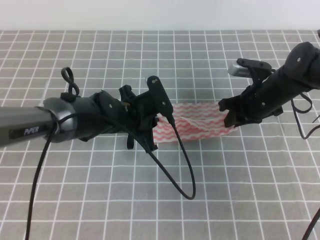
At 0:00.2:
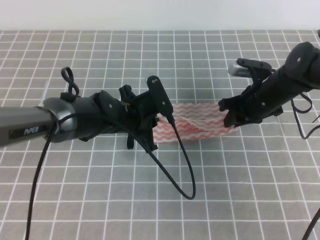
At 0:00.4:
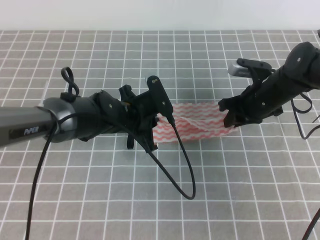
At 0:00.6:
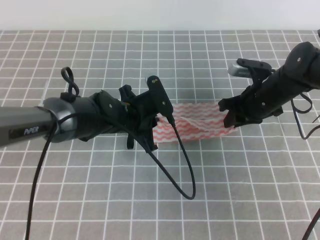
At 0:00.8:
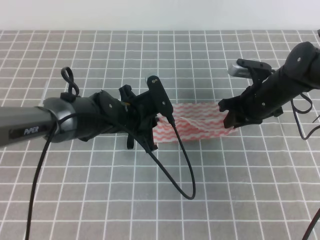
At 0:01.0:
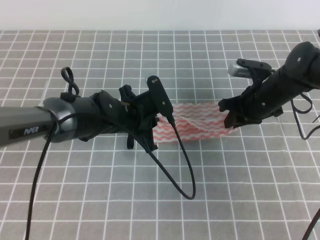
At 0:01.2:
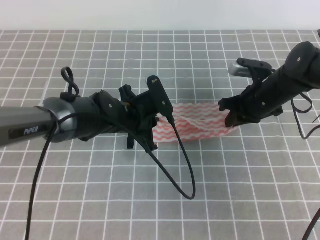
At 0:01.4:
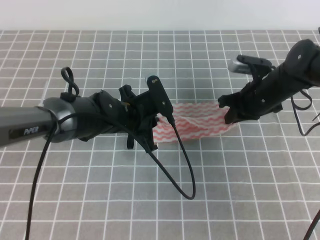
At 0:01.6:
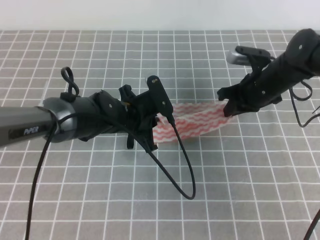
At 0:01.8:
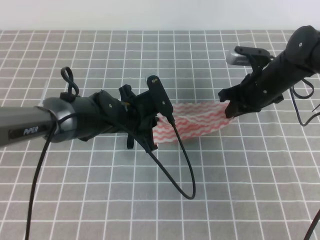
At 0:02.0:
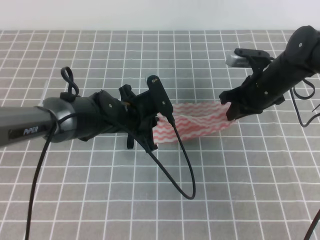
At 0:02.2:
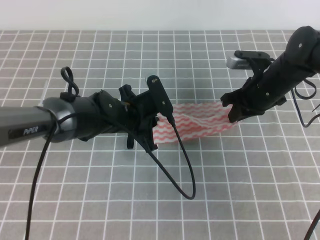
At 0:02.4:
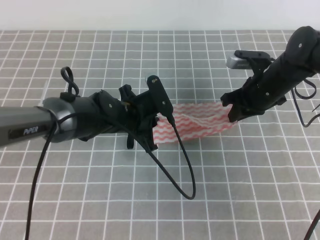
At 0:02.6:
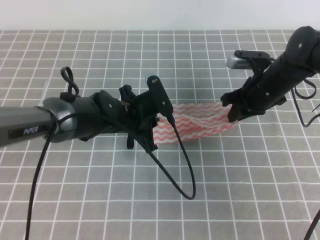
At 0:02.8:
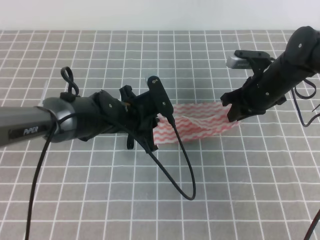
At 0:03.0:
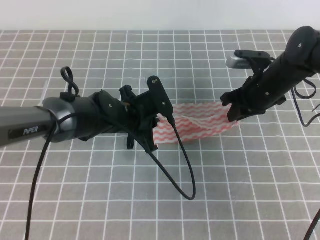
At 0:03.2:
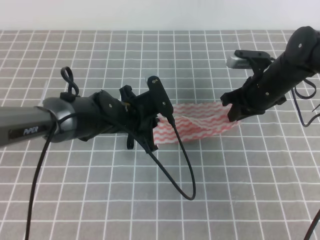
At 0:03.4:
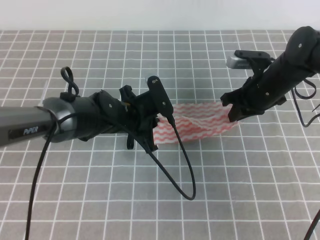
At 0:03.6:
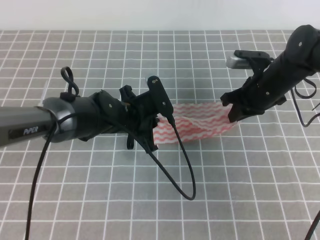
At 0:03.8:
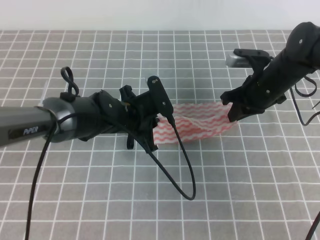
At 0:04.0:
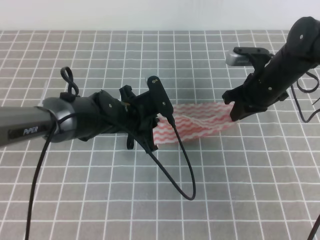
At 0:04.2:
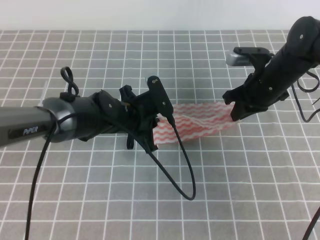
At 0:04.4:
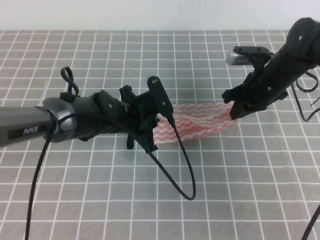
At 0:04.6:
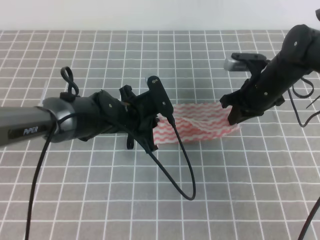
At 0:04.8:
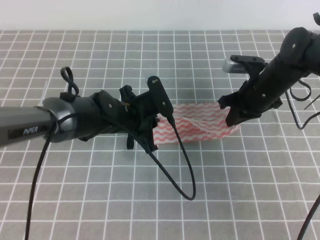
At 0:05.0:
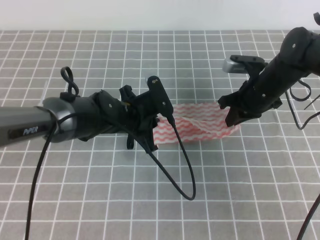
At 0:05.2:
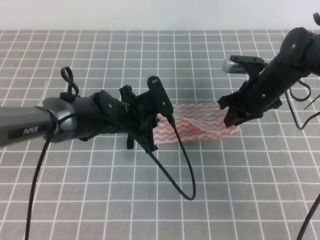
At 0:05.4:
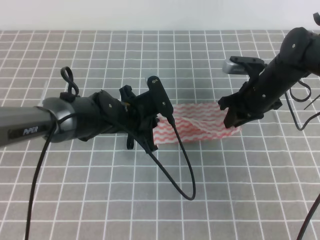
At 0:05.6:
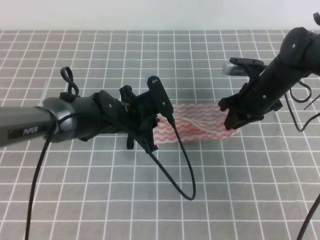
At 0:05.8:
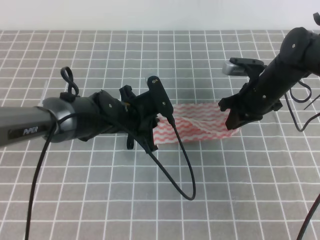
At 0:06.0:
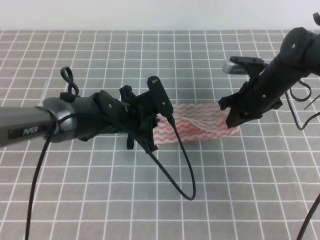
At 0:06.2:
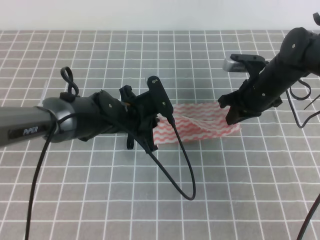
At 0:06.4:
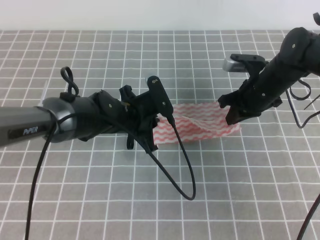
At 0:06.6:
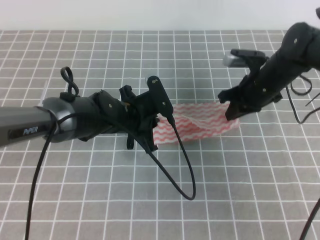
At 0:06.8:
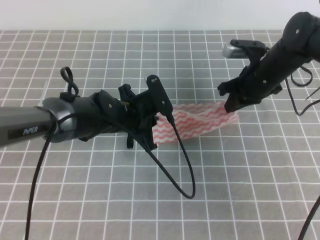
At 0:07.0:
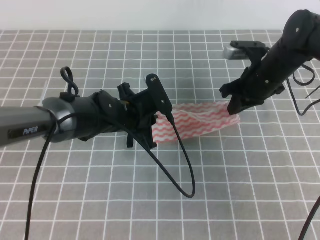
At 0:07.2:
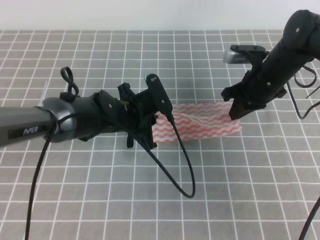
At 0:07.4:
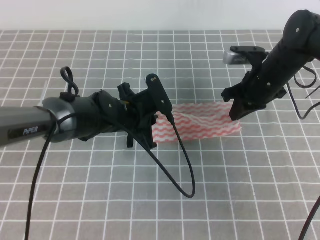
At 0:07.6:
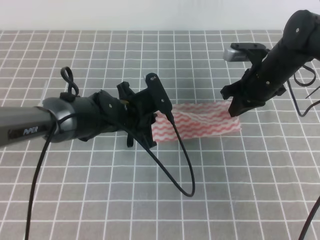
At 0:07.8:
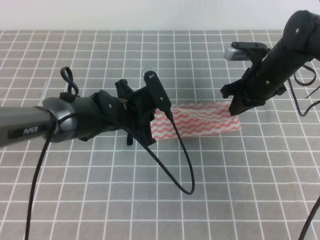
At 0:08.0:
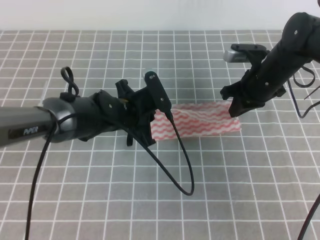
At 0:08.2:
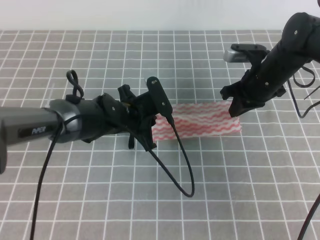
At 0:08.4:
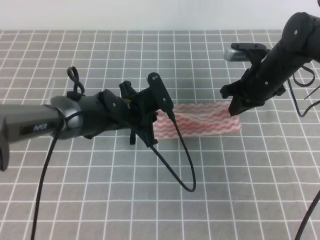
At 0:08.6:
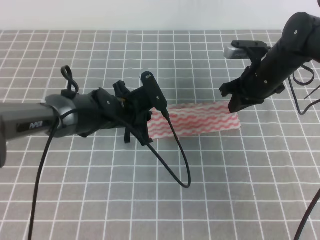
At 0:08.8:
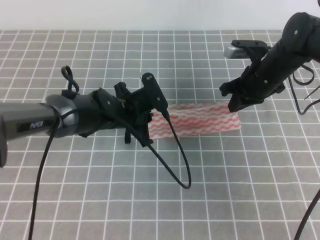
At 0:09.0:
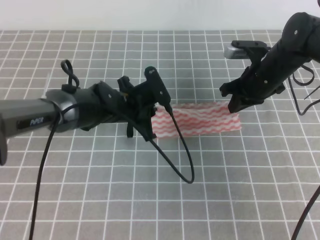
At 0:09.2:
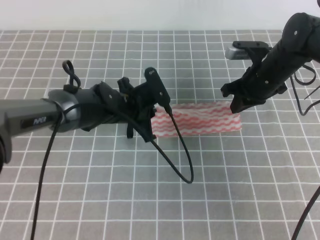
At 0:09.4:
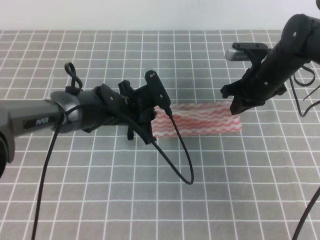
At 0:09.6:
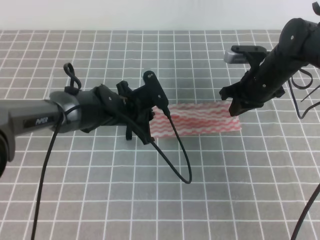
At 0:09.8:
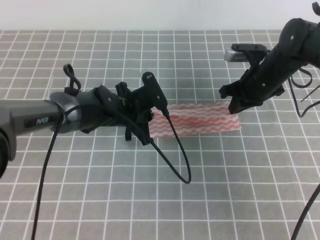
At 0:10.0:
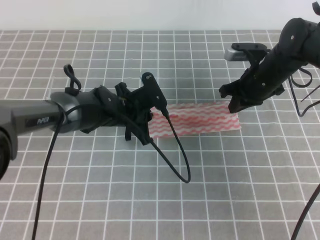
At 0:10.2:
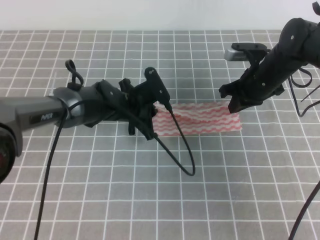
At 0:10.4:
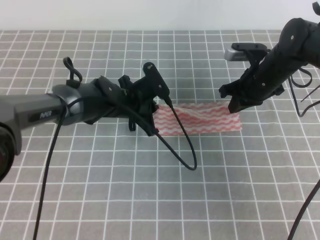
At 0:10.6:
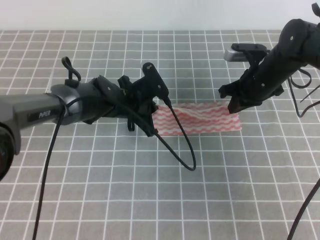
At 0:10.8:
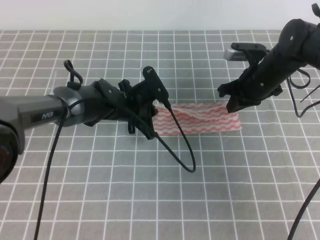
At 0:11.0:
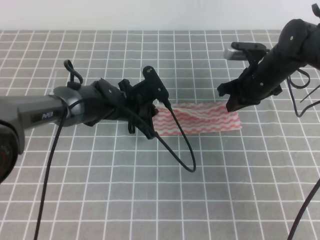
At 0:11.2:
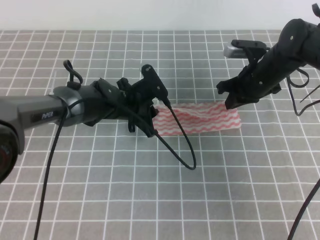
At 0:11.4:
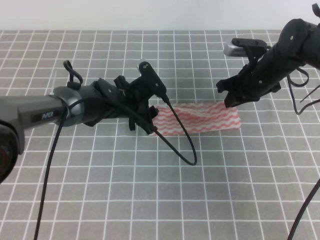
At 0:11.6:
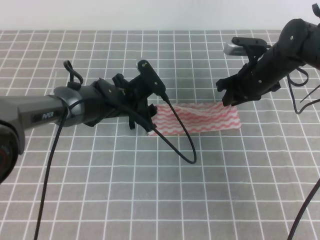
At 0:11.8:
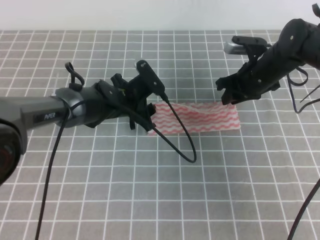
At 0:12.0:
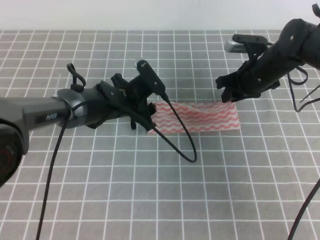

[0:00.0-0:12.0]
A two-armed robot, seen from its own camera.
0:00.0 to 0:03.0: There are only small adjustments of the grippers.
0:03.0 to 0:04.4: Neither gripper changes place.
0:04.4 to 0:06.0: The right gripper opens, then closes again.
0:06.0 to 0:10.4: The grippers stay close to where they were, moving slightly.
0:10.4 to 0:12.0: The right gripper opens up; the left gripper opens up.

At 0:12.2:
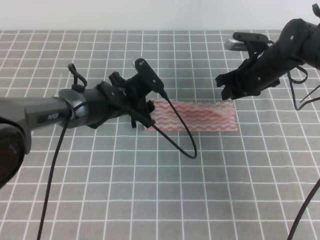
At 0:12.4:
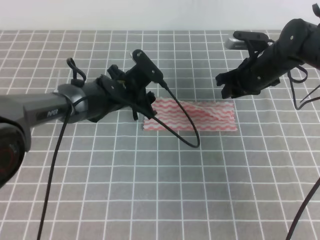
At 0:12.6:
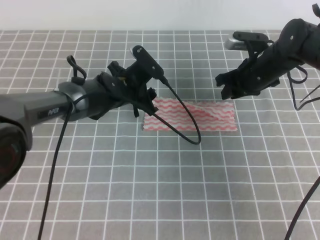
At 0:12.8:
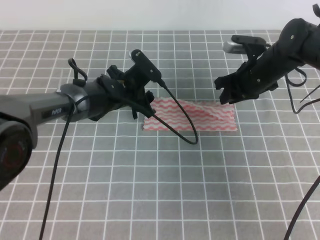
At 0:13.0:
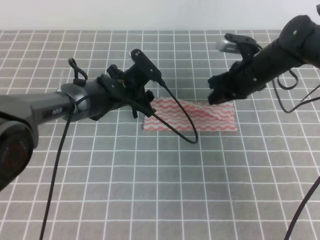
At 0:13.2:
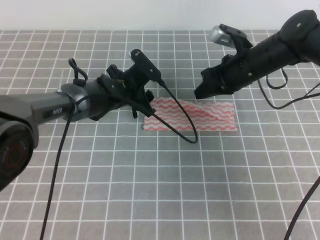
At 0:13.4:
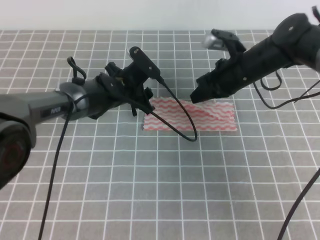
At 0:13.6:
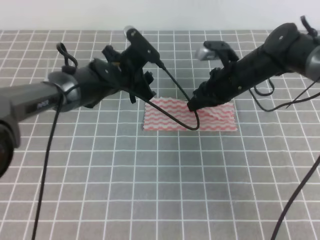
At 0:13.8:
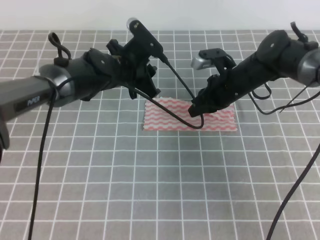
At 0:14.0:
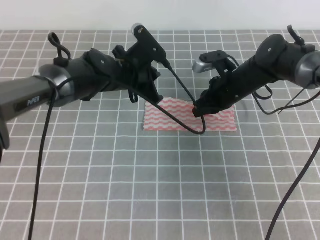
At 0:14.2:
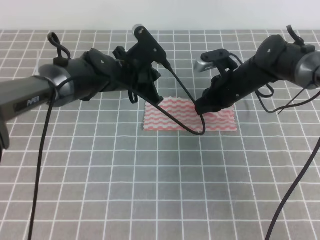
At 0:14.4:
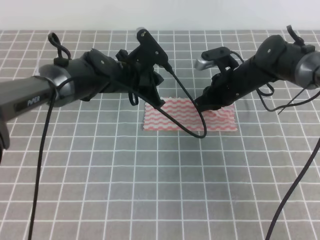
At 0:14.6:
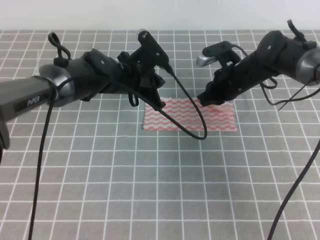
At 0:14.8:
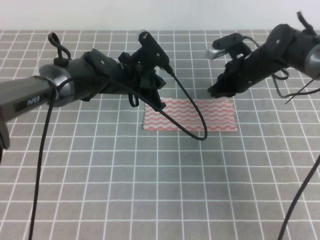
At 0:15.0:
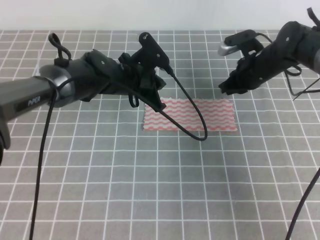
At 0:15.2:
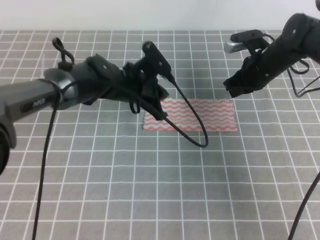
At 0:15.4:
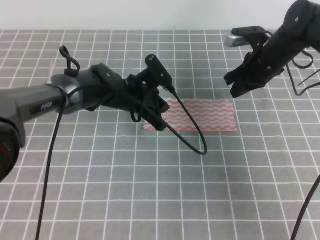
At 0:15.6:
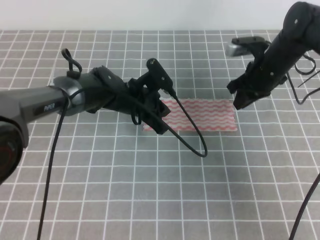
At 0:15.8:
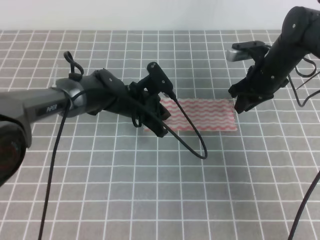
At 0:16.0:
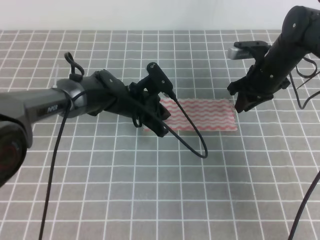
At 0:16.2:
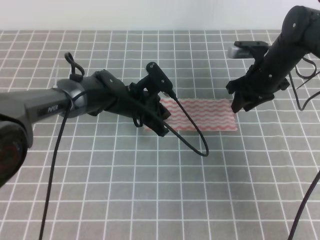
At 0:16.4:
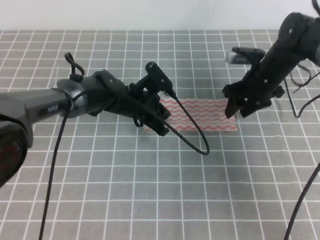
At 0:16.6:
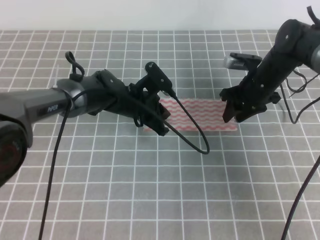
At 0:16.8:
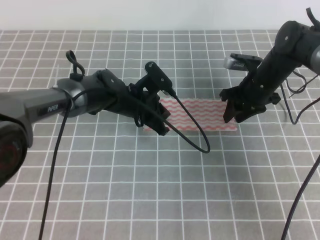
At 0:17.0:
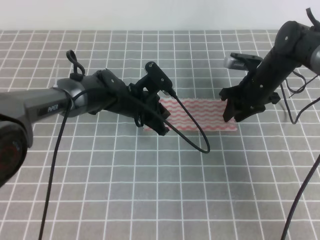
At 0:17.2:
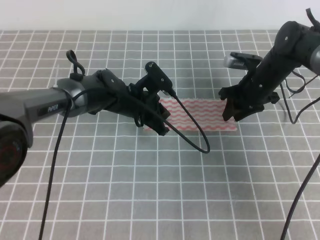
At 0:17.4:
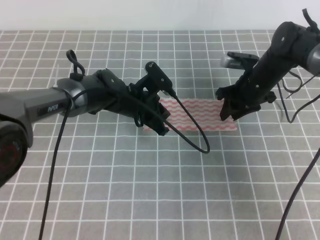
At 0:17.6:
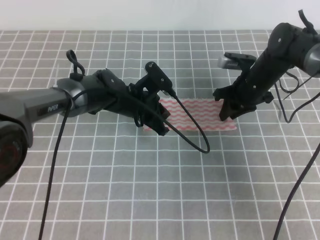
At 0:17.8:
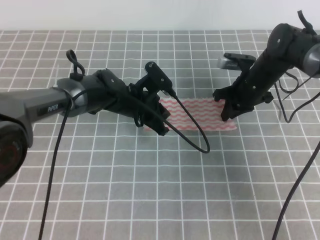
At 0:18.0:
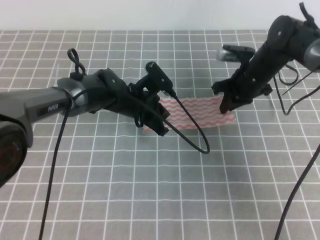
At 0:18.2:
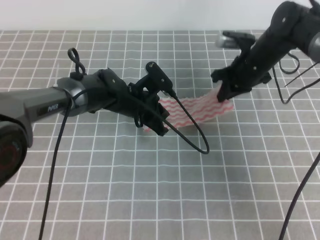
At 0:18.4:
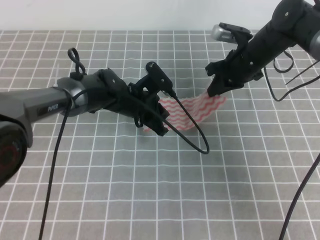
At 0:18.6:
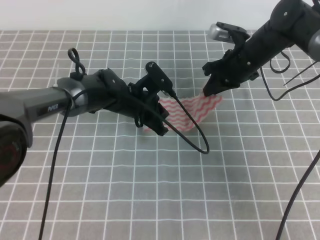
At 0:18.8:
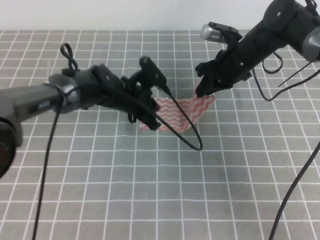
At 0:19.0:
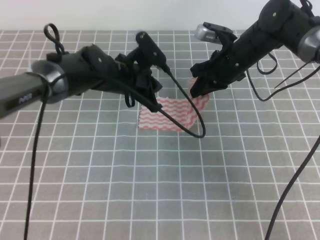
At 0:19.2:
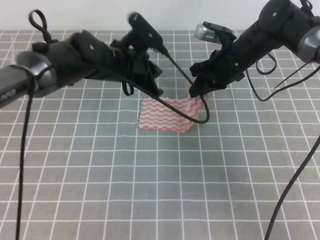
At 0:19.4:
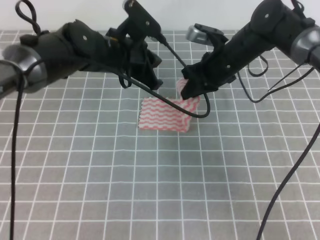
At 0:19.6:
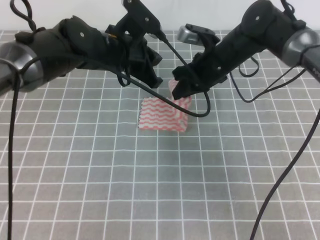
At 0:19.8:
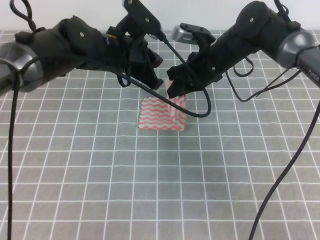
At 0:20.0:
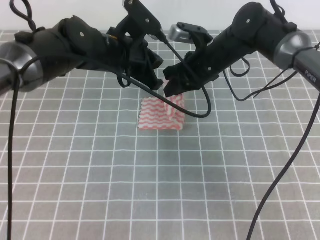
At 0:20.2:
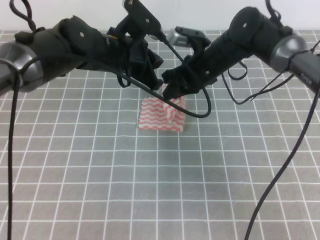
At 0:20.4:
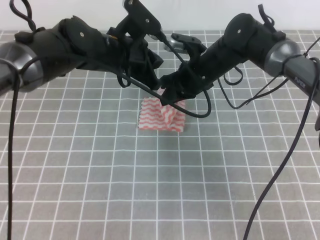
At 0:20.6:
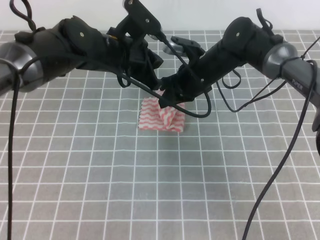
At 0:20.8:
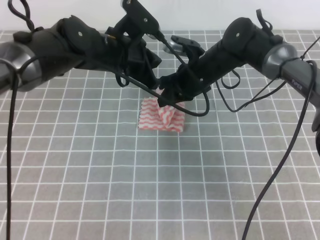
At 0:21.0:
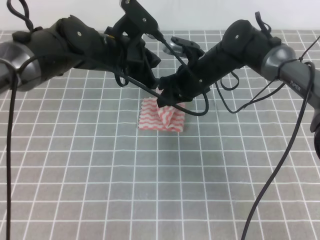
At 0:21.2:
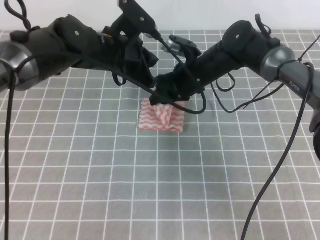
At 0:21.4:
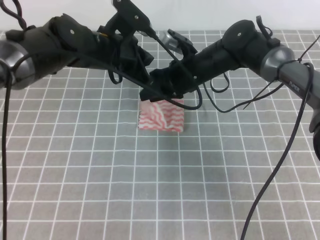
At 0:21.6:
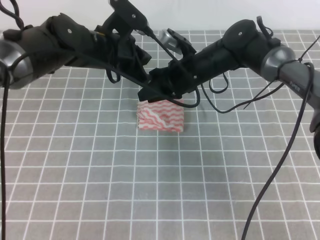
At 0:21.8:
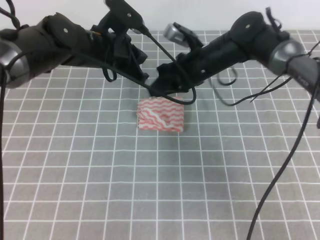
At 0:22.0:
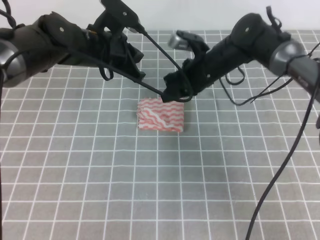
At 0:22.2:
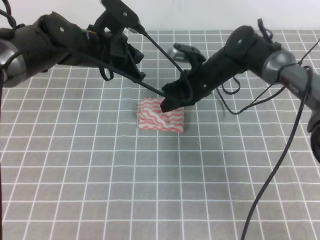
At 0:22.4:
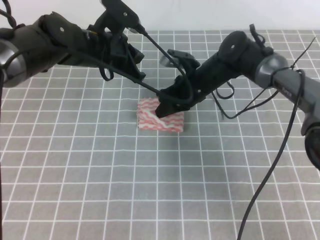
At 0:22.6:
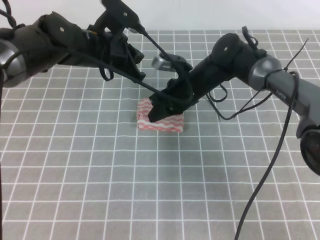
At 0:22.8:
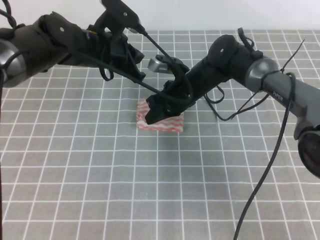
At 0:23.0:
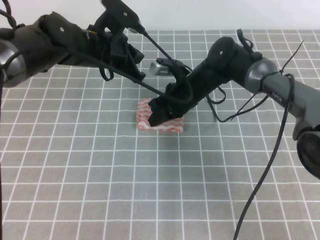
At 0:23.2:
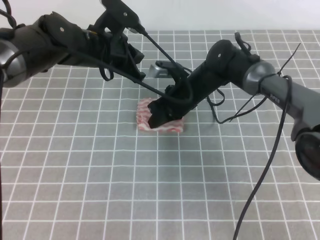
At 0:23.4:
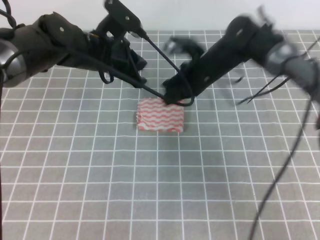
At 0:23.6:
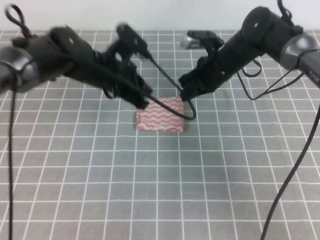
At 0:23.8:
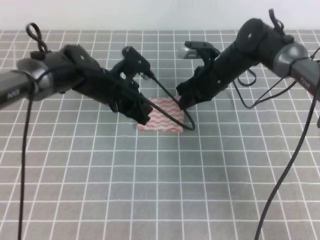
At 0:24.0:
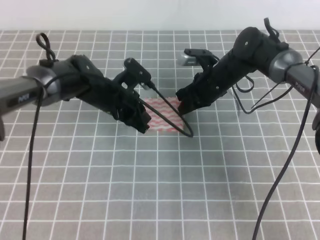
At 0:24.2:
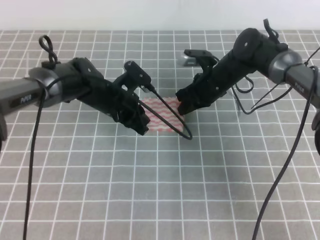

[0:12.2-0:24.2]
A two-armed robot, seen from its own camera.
0:12.2 to 0:13.8: The left gripper is displaced upward by about 5 cm, and closes up; the right gripper ends up about 5 cm from where it was, and closes its fingers.
0:13.8 to 0:15.2: The left gripper closes its fingers. The right gripper travels to the right by roughly 5 cm.
0:15.2 to 0:16.6: The right gripper opens.
0:16.6 to 0:18.2: The right gripper closes up.
0:18.2 to 0:19.8: The left gripper heads upward, covering roughly 15 cm. Meanwhile the right gripper goes some 10 cm to the left.
0:19.8 to 0:21.2: The right gripper opens up.
0:21.2 to 0:22.6: The right gripper closes.
0:22.6 to 0:24.2: The right gripper shifts by about 5 cm. The left gripper travels downward by approximately 10 cm.
